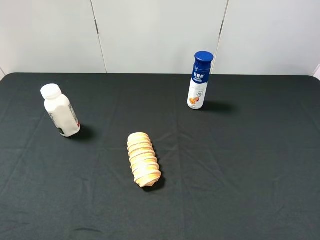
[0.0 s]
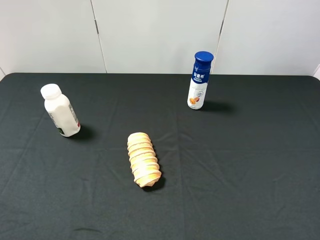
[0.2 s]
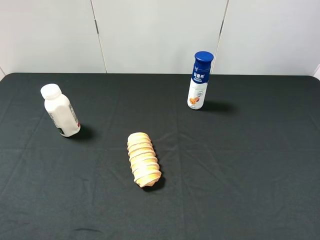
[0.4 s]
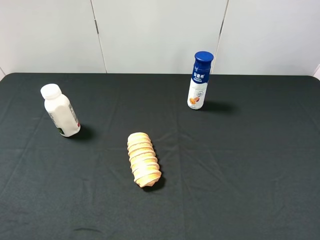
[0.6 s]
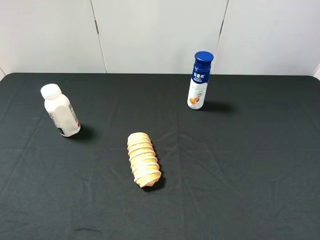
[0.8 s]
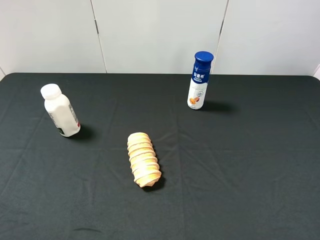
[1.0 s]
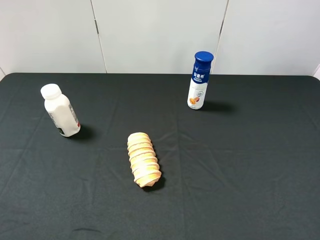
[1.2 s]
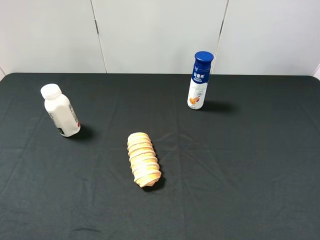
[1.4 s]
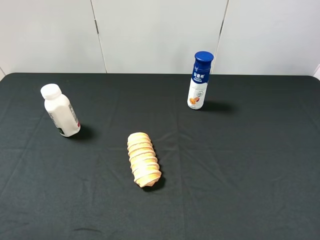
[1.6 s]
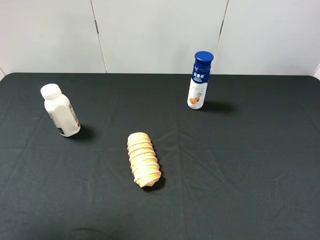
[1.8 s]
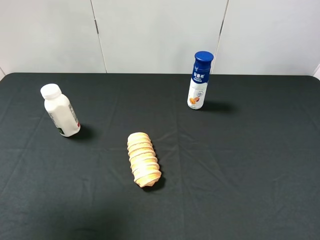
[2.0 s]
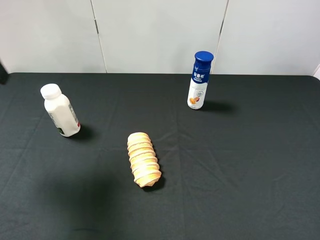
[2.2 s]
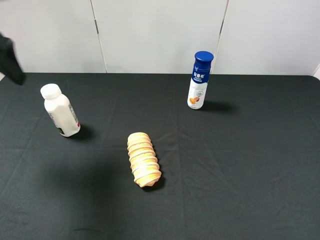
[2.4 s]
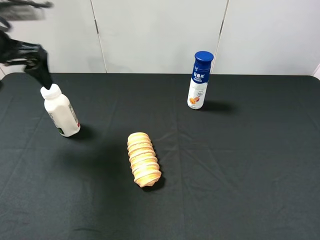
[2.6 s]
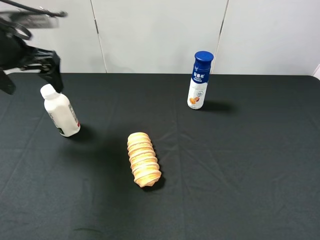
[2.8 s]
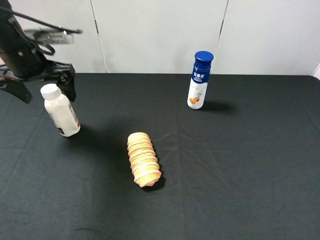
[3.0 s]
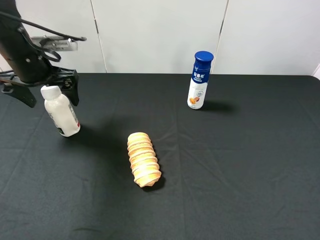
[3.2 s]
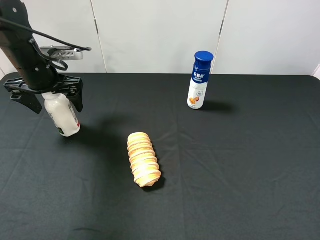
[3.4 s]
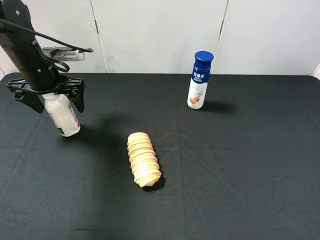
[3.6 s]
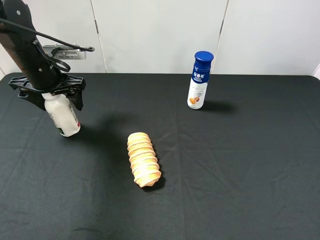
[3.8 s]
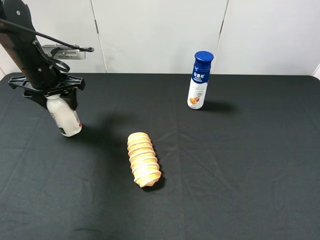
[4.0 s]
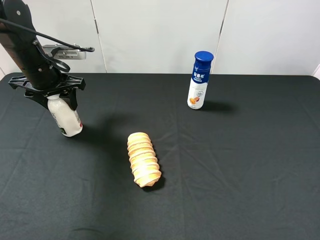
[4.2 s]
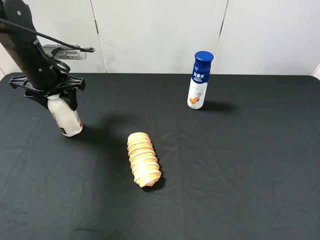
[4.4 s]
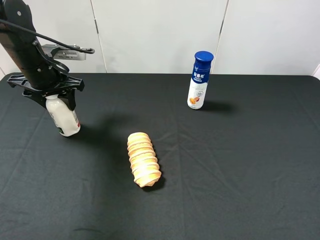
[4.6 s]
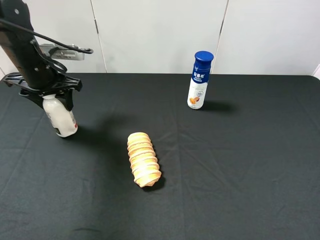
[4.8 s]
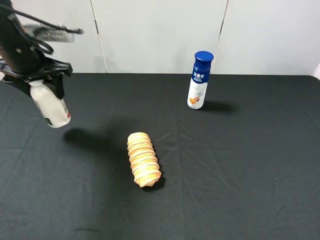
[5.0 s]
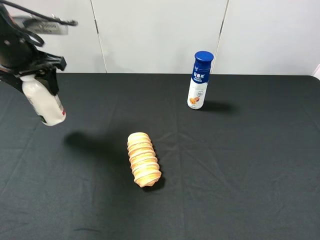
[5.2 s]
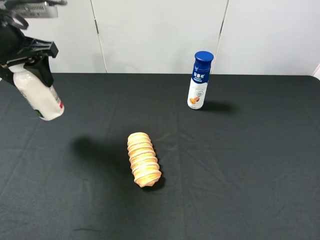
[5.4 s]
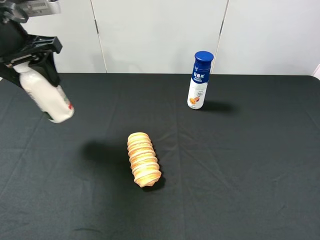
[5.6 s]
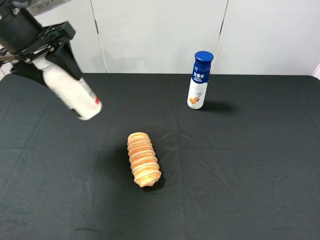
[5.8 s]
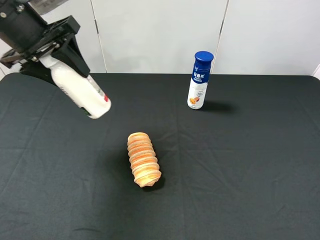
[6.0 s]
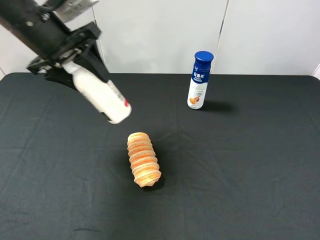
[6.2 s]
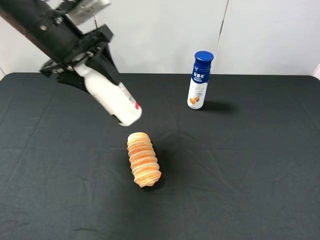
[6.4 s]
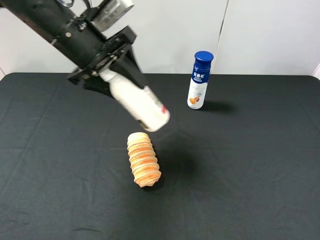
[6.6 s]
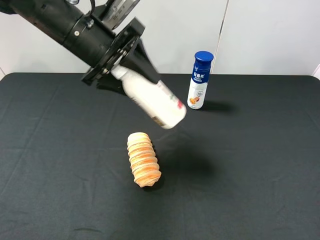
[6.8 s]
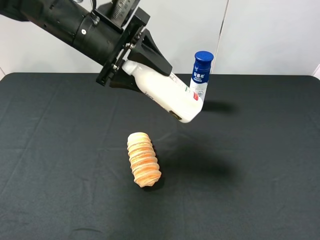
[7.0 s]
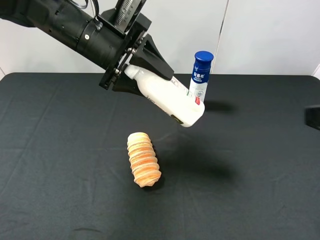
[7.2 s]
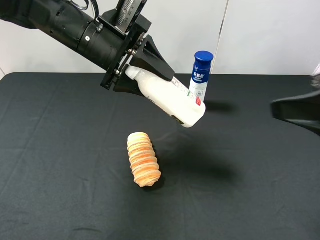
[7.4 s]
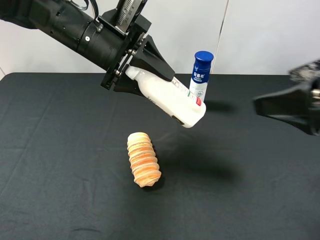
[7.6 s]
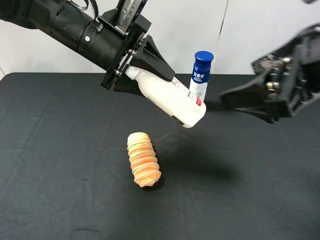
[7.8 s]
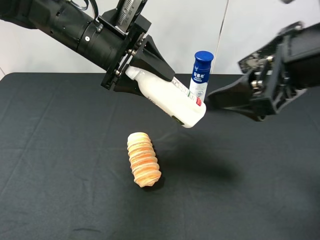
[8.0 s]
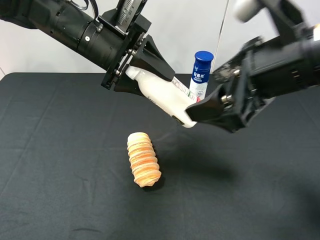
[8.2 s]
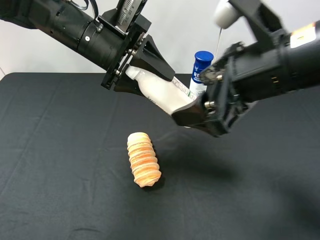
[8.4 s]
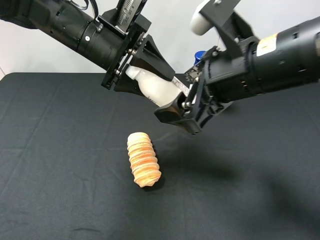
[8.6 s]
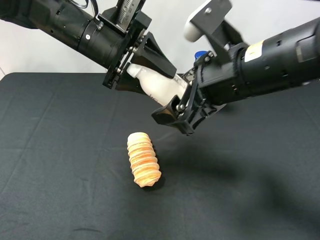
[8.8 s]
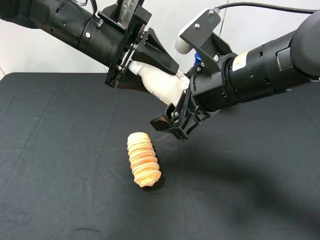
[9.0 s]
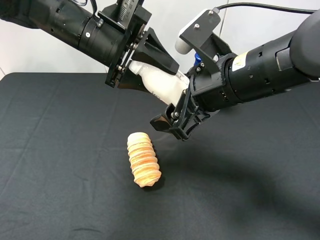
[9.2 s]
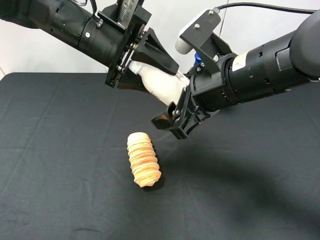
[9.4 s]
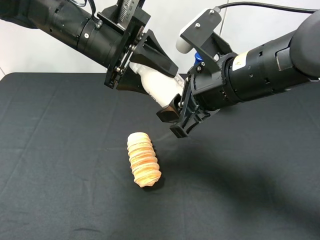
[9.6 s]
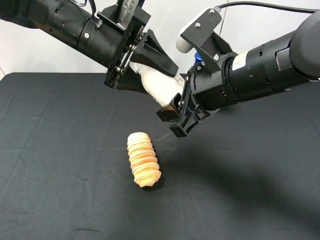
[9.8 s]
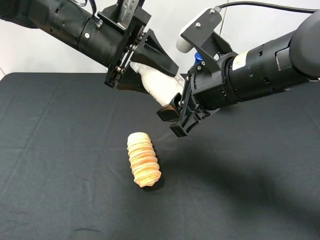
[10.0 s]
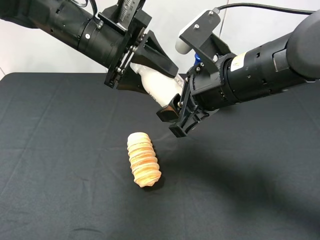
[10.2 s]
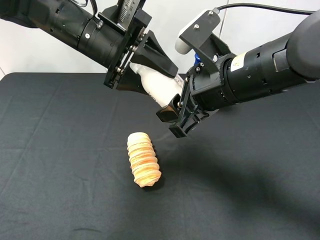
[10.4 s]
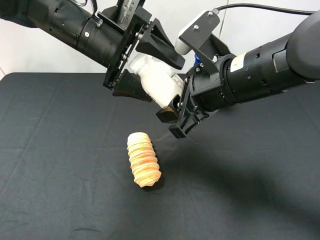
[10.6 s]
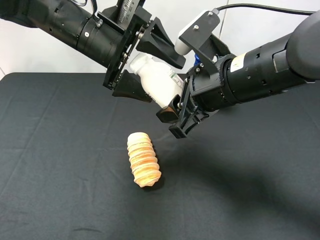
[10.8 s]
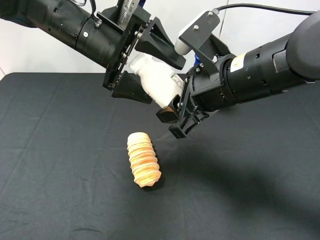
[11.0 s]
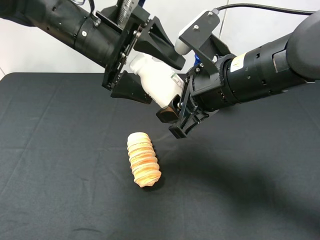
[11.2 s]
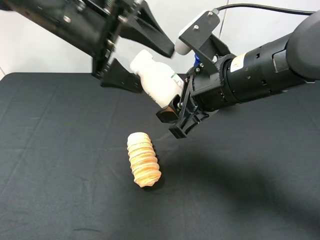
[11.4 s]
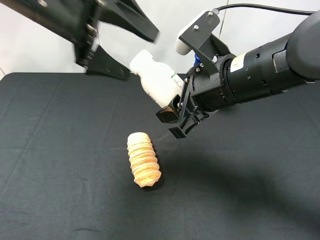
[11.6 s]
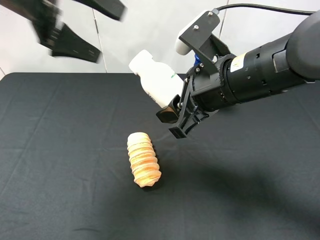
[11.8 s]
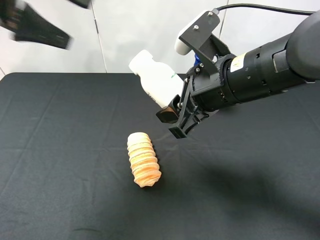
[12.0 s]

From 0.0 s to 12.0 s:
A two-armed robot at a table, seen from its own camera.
Task of the whole recording: use the left gripper to pick up the item and transfer it from the left gripper to the right gripper.
From 1.6 s to 3.0 s: The left gripper moves forward and downward, some 30 cm.
From 3.0 s to 4.4 s: The left gripper closes up.
From 4.4 s to 6.0 s: The left gripper travels upward and backward by about 10 cm.
From 6.0 s to 7.6 s: The left gripper goes some 10 cm to the right. Meanwhile the right gripper is displaced forward and to the left by roughly 15 cm.
From 7.6 s to 9.0 s: The right gripper is displaced to the left, downward and forward by about 15 cm.
From 9.0 s to 10.4 s: The right gripper closes.
From 10.4 s to 12.0 s: The left gripper heads to the left, upward and backward, covering some 20 cm, and opens up.

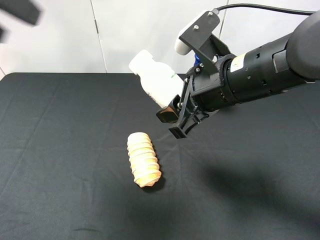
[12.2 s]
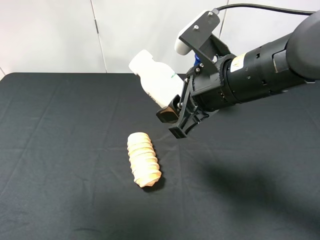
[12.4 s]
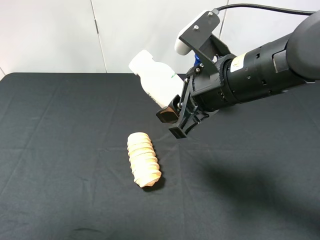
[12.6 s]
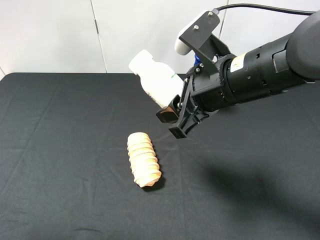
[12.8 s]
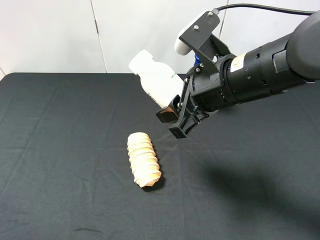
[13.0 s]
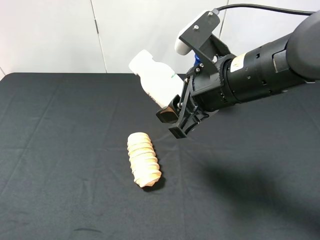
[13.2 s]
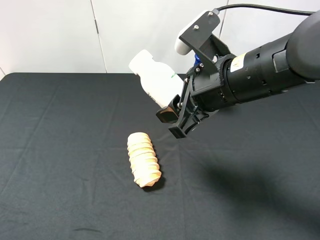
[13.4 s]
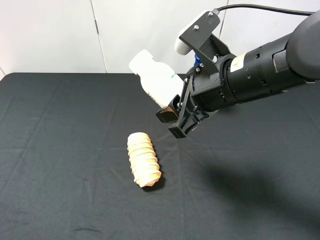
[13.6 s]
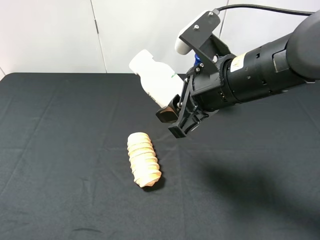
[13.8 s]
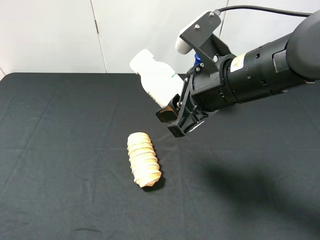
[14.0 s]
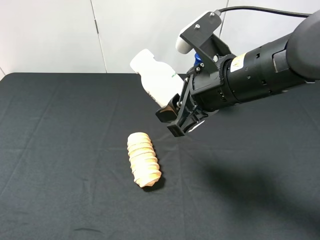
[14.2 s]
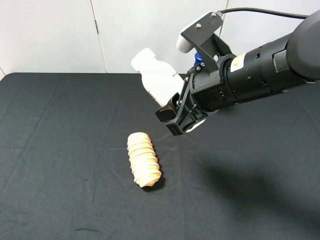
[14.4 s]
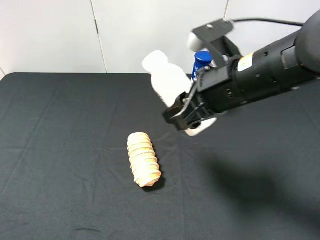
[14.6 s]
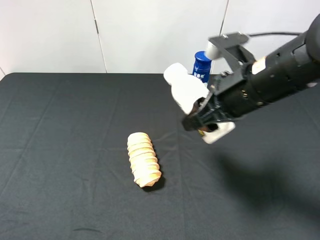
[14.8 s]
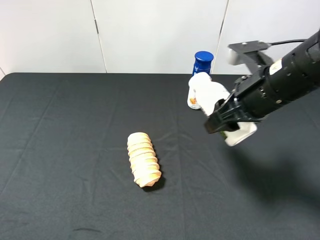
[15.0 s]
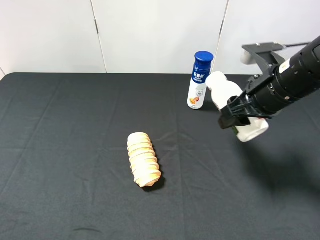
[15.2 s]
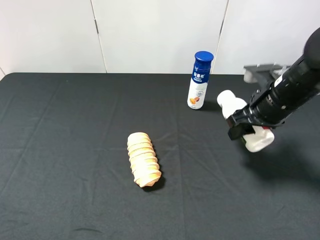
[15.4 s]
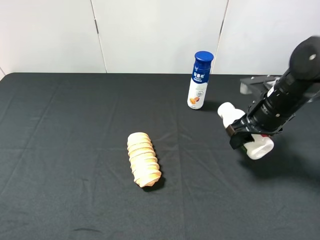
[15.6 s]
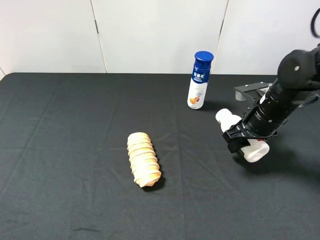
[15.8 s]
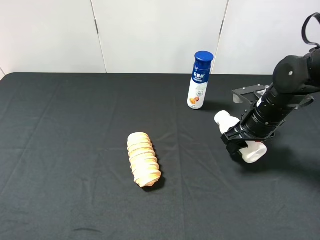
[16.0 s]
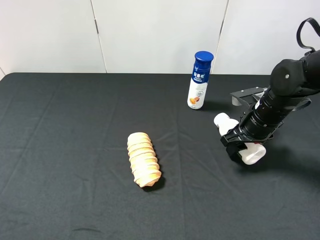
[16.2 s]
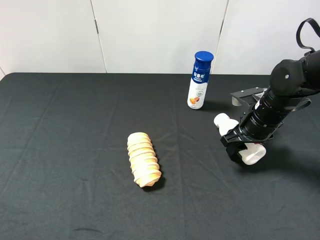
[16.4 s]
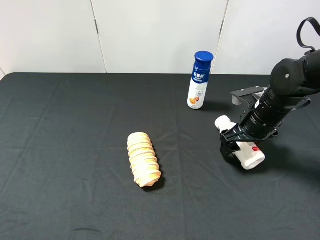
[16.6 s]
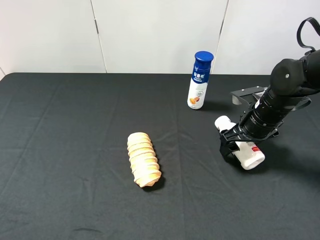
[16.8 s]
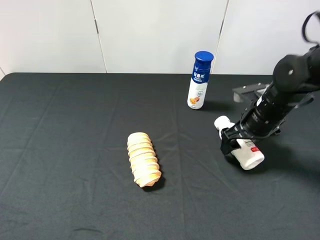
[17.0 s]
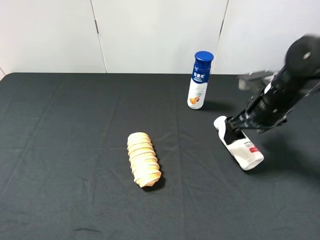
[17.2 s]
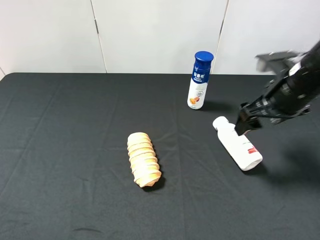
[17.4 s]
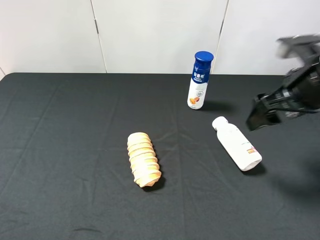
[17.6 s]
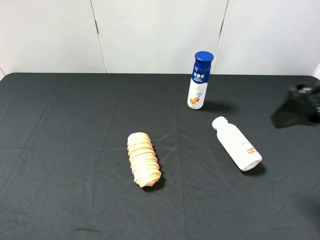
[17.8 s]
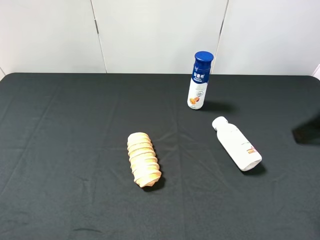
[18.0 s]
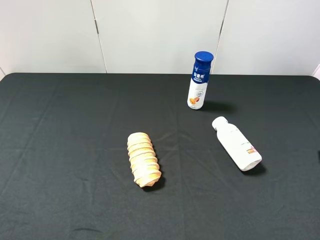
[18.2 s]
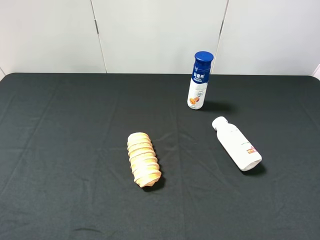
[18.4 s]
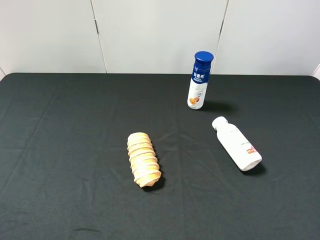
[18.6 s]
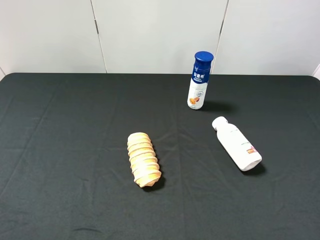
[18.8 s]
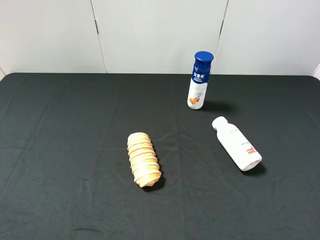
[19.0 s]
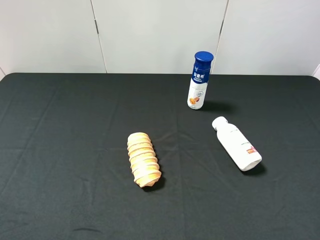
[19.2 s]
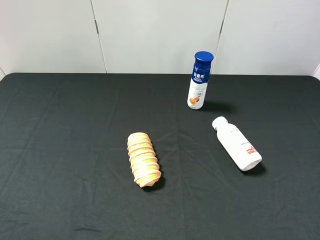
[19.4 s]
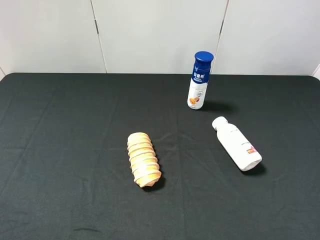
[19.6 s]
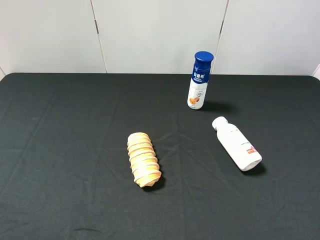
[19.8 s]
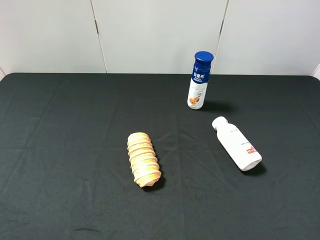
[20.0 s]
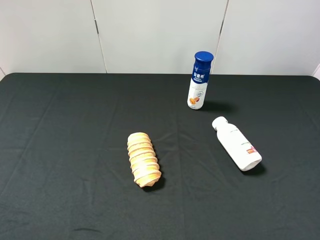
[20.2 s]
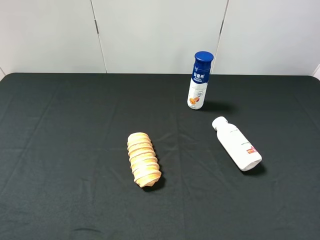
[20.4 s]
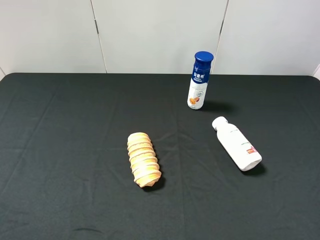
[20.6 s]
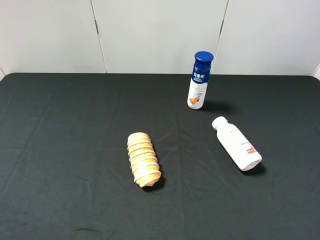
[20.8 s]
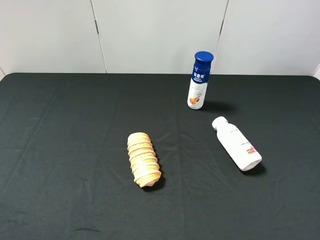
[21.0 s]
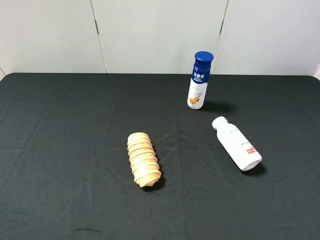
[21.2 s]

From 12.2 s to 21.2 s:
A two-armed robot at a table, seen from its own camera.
Task of the whole recording: use the left gripper to pick up the item and transfer it from the left gripper to the right gripper.
From 12.2 s to 13.8 s: The left gripper travels backward and downward by about 25 cm.
From 13.8 s to 15.2 s: The right gripper moves to the right, some 10 cm.
From 15.2 s to 16.6 s: The right gripper is displaced downward by about 10 cm, and opens up.
From 16.6 s to 18.2 s: The right gripper goes approximately 30 cm backward and upward.
From 19.8 s to 21.2 s: Both grippers stay put.
